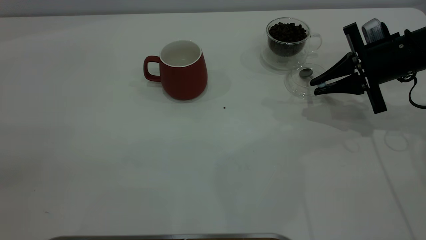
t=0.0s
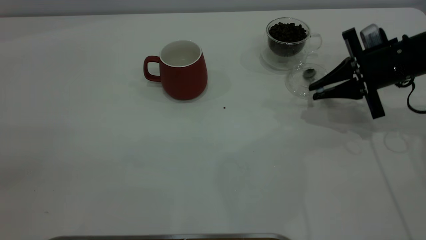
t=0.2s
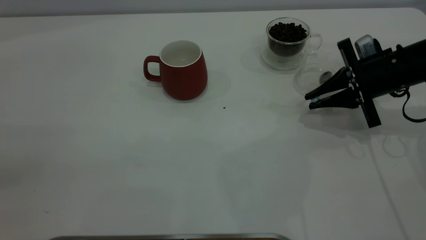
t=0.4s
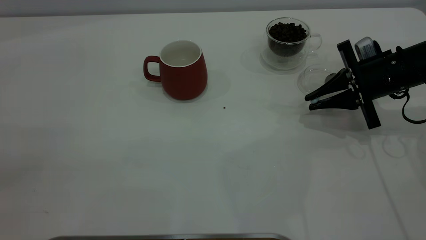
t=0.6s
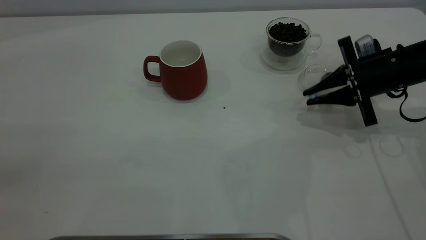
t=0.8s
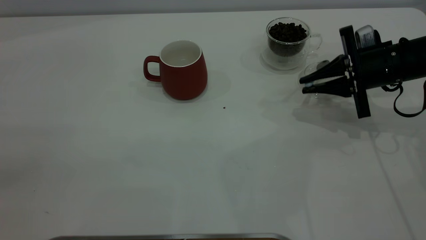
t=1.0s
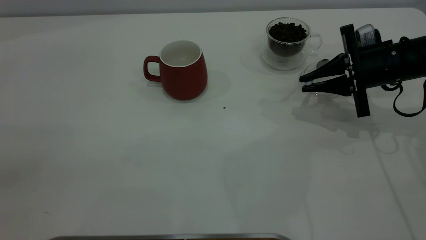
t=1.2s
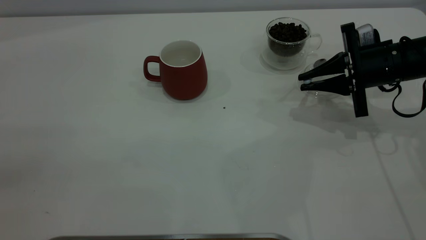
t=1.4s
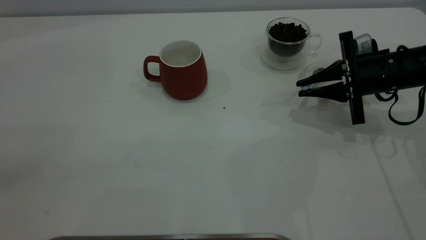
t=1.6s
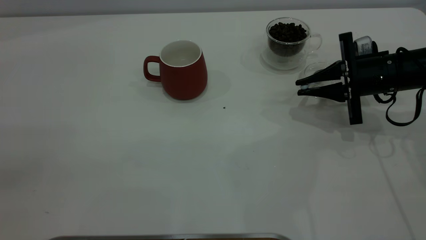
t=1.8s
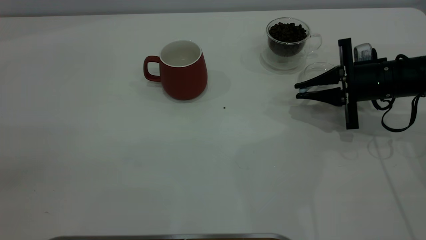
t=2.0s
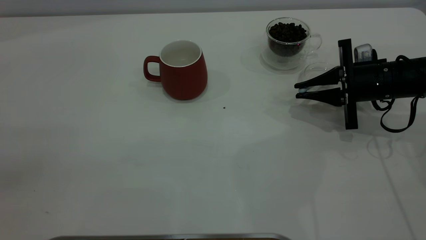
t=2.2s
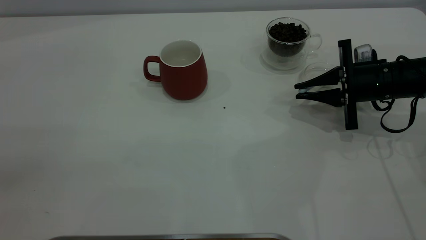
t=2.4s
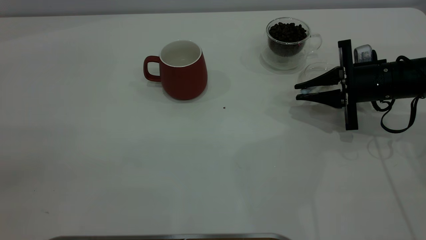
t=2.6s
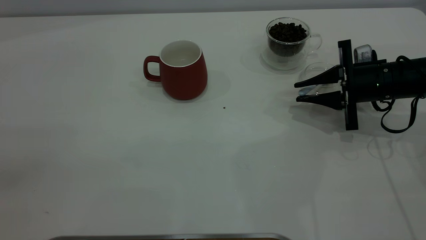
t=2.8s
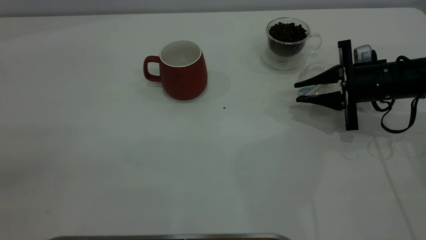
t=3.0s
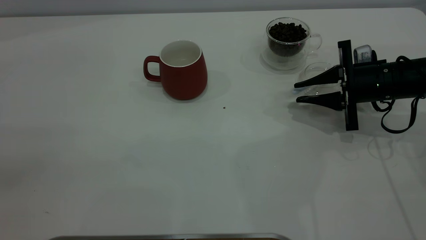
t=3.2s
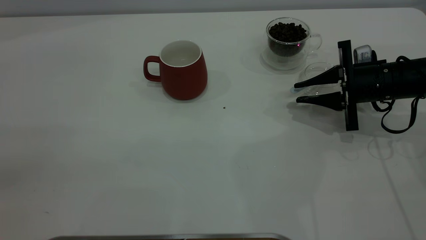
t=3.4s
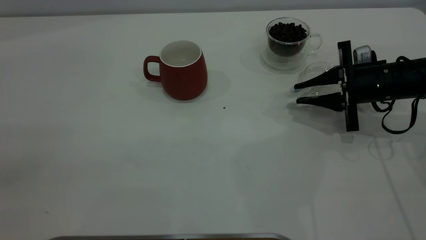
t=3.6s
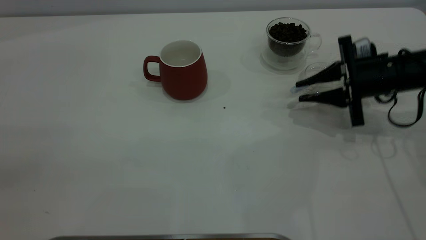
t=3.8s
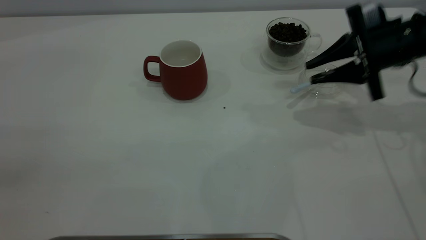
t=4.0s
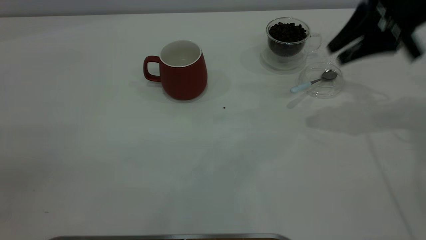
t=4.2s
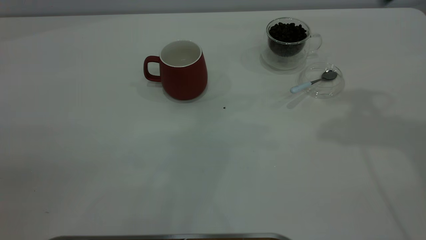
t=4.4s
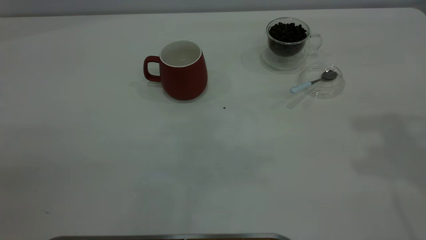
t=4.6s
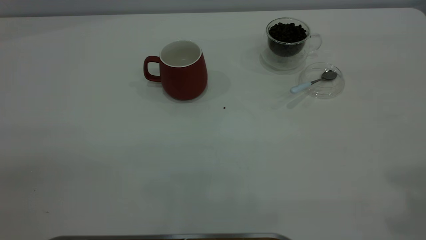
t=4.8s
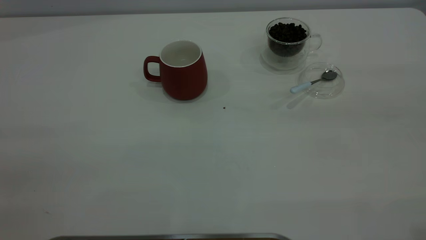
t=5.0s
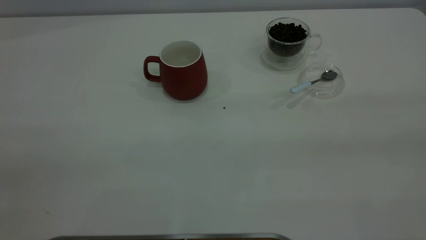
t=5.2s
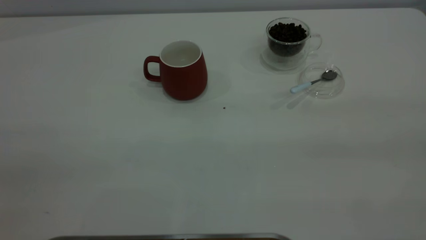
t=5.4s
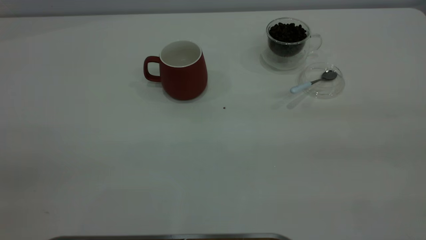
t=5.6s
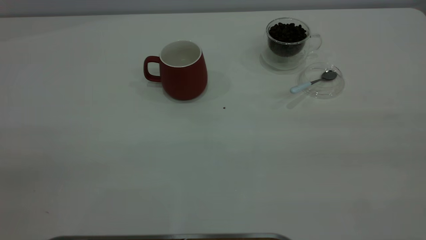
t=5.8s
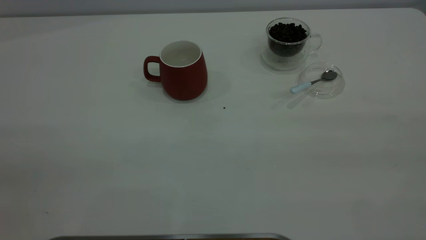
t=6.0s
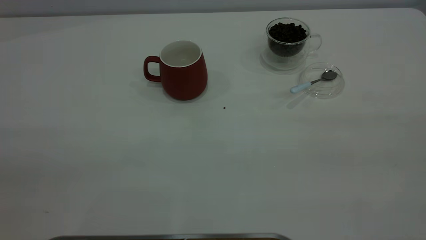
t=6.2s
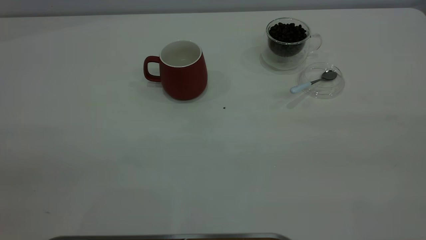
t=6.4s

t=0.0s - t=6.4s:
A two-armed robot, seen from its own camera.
Task of the whole recording: the left gripper place the red cup in the center of the table, the right gripper take the blue spoon from the cup lid and scoop out the coffee beans from the coffee cup and put them into the red cup, the right gripper put the spoon back into the cup lid.
Step, t=0.0s - t=3.8s: Place the spoon back in its original place.
t=0.0s - t=3.2s: There are only small adjustments of the grippers.
t=3.2s - t=4.8s: The right gripper travels upward and backward by about 40 cm.

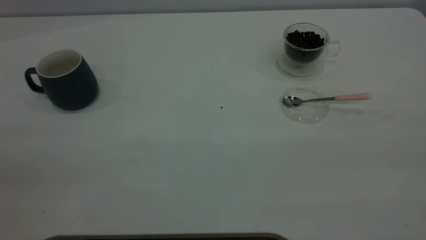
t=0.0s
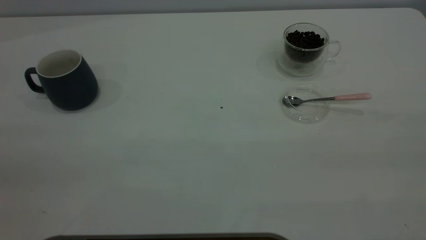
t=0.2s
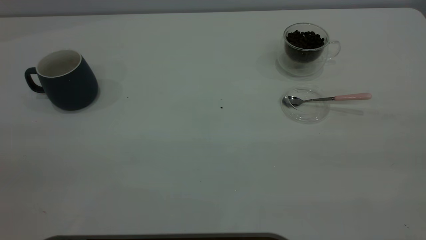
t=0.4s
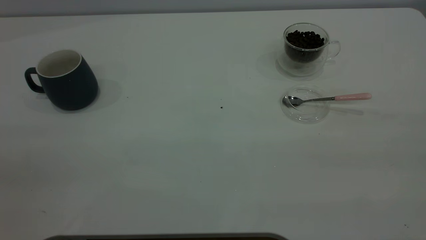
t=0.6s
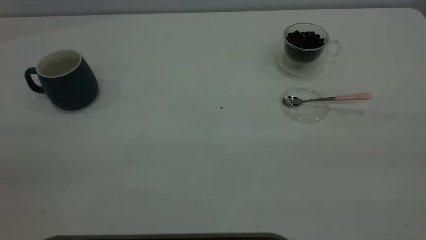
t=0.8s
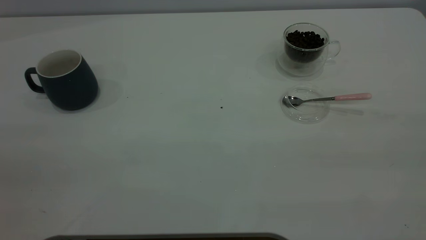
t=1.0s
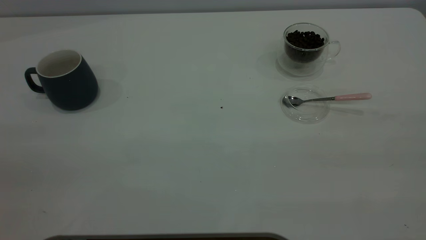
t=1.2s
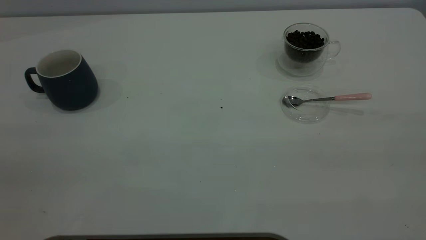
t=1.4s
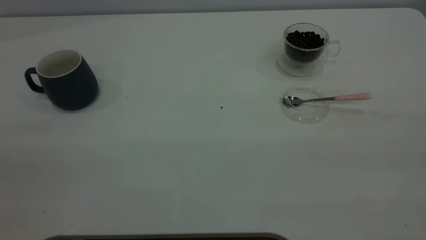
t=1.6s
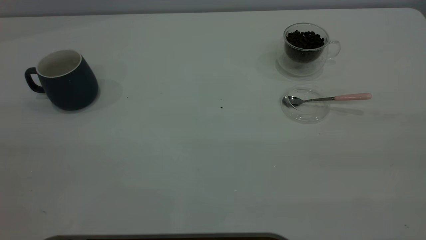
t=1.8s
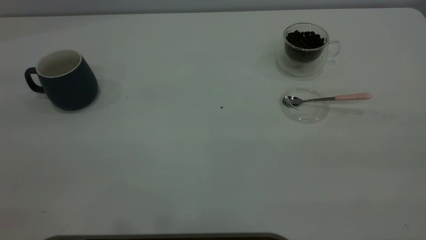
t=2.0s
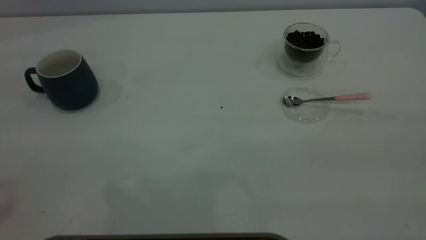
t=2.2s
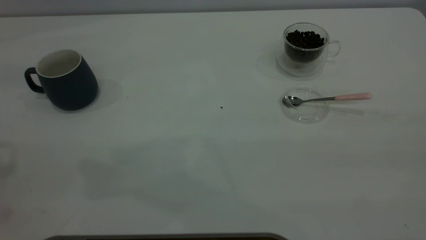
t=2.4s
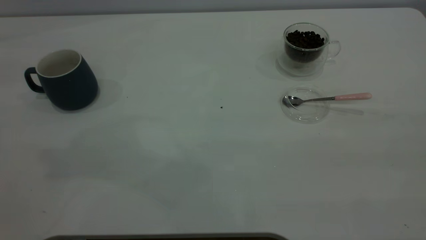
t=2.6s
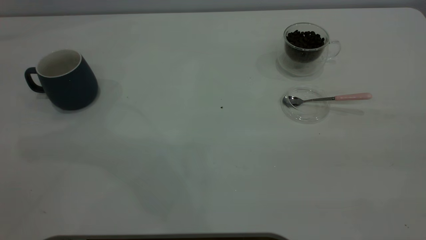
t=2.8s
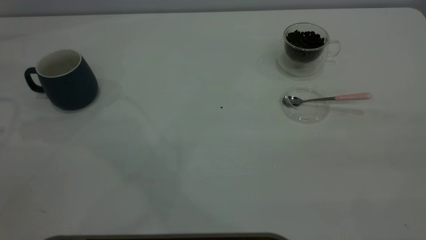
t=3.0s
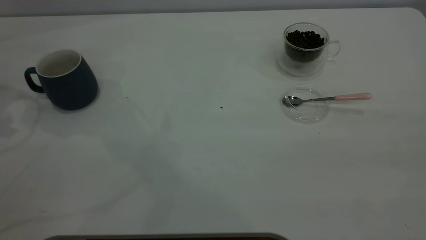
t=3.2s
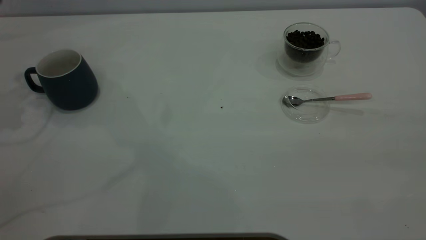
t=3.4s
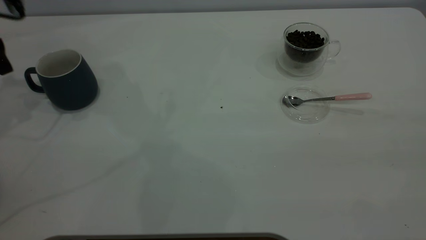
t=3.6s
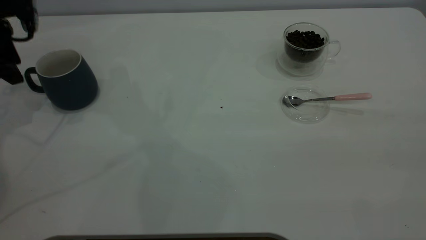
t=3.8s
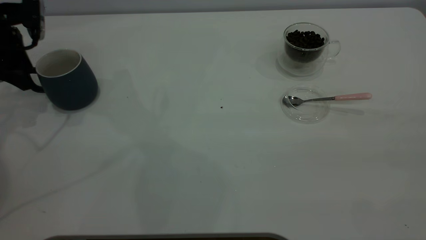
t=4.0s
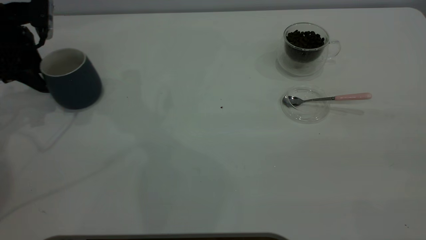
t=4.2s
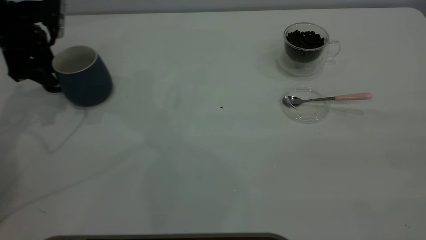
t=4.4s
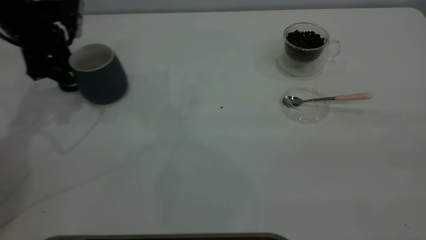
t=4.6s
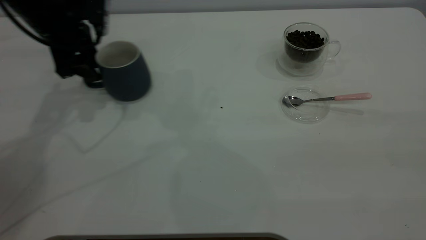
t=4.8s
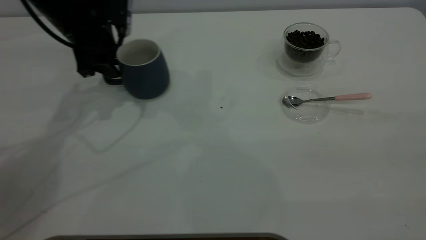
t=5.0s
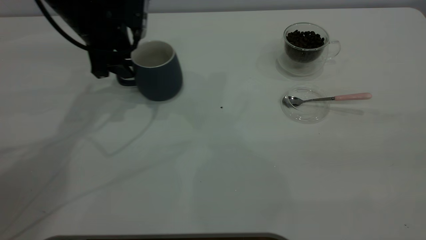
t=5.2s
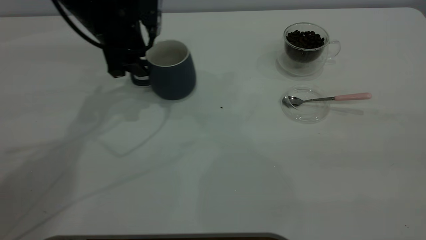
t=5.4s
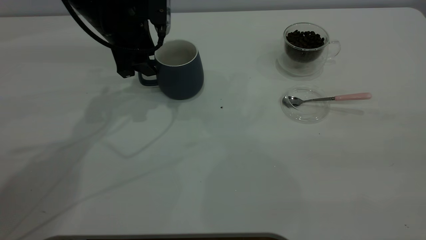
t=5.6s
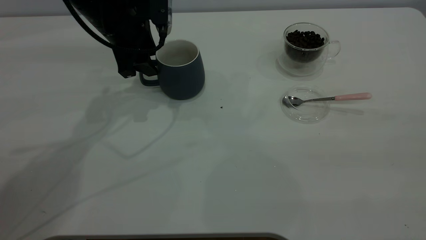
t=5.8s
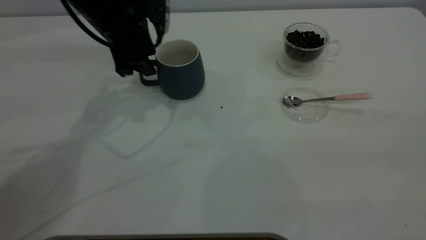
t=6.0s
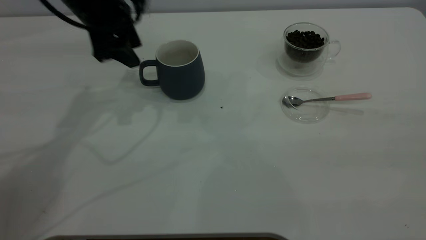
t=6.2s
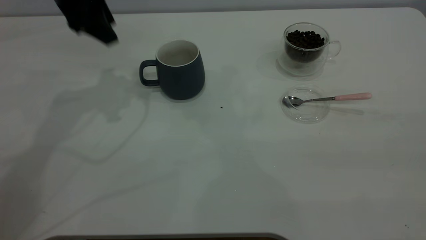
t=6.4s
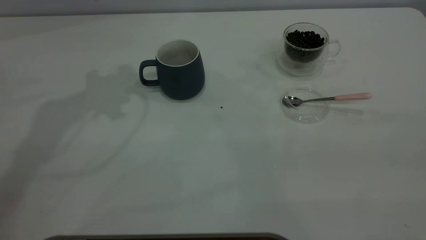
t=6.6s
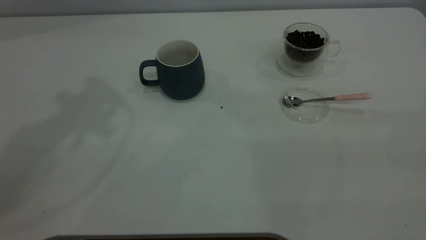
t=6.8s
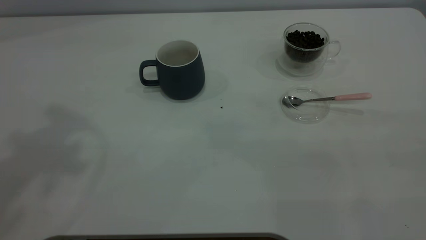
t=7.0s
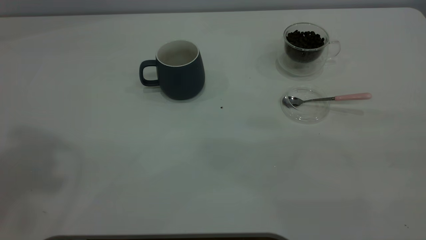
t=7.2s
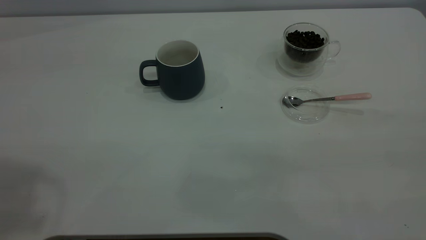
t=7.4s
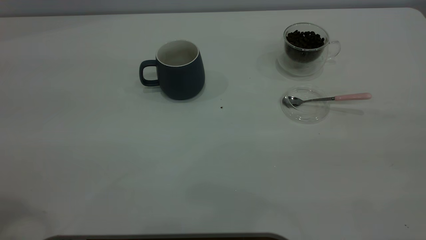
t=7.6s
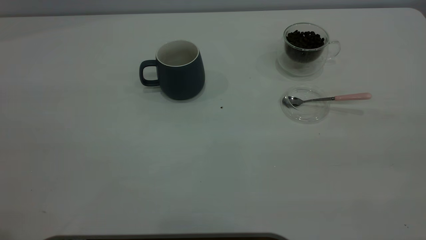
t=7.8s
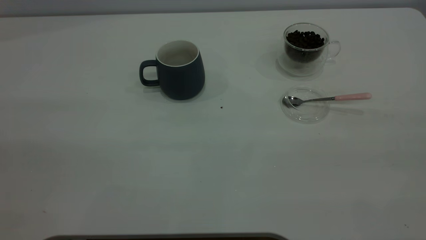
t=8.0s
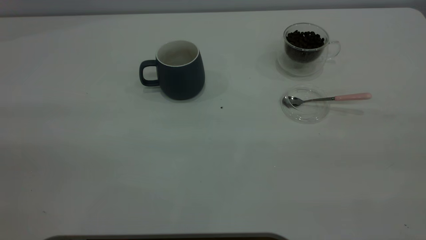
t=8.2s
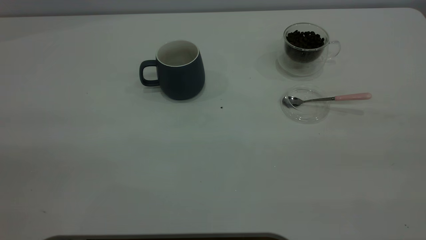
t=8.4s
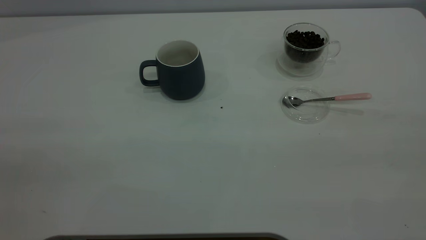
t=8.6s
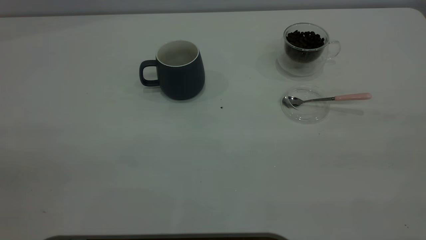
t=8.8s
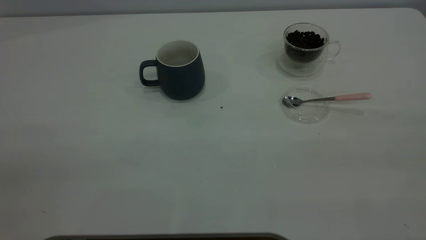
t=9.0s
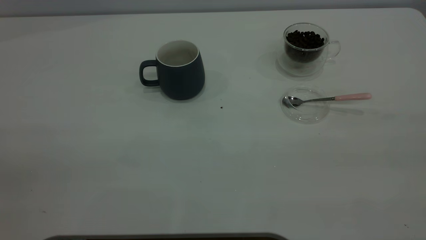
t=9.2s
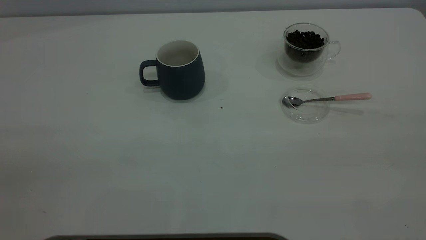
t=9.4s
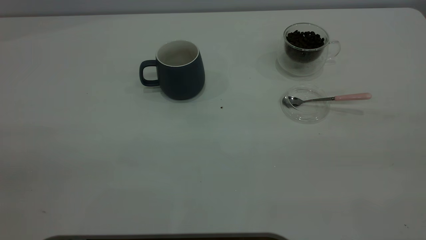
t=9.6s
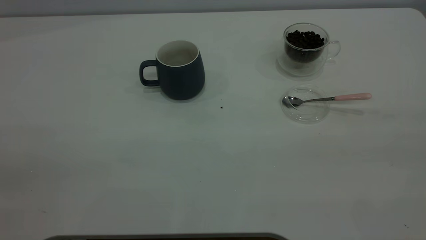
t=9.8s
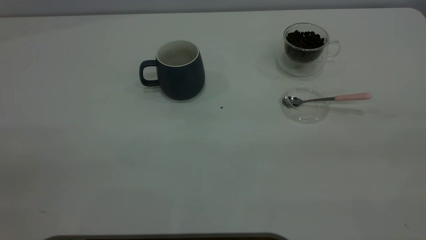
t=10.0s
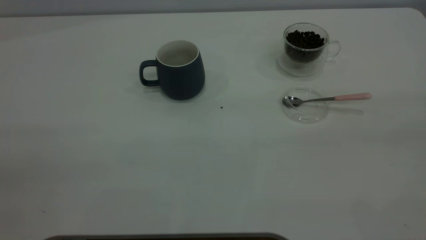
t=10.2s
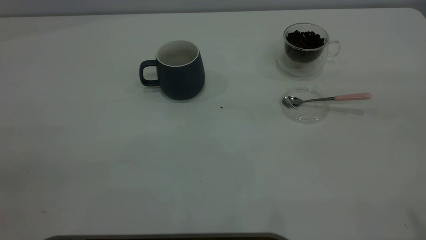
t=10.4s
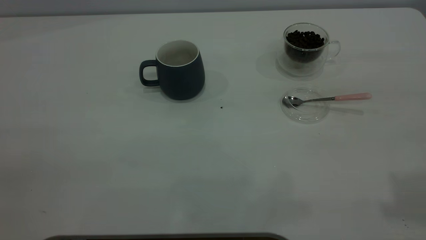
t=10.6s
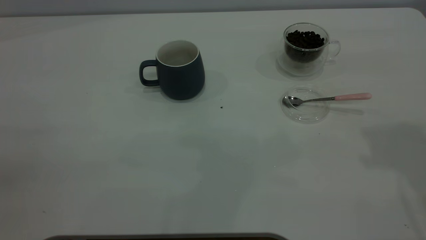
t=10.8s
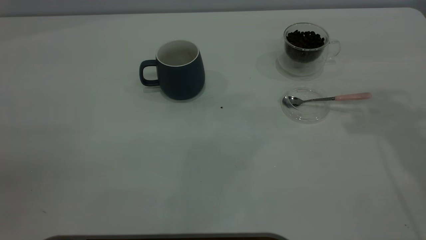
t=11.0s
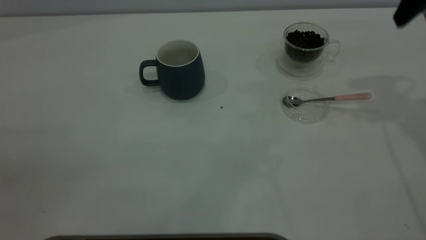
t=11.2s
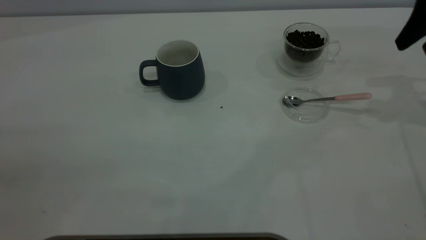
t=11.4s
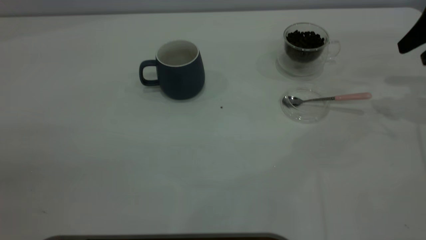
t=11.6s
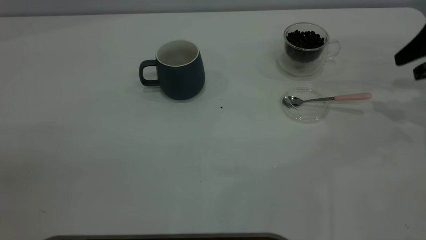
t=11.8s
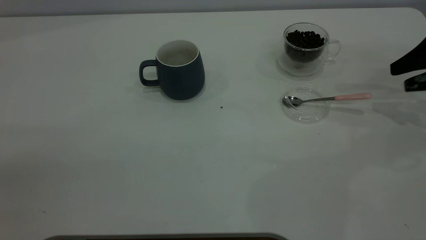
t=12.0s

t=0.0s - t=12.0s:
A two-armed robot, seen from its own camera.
Task of the whole recording: the left gripper place the grey cup in the center of the table, the right gripper take the pink spoon from the cup lid and scoop out the coffee beans from the coffee cup and put them into the grey cup, the right gripper put the spoon back into the cup lid.
Step, t=0.0s - t=6.0s: Move the cup to the center of view.
t=3.0s - t=4.4s: The left gripper moves downward, to the right and forward, some 20 cm.
t=4.4s - t=6.0s: The left gripper shifts approximately 15 cm to the right.
t=6.0s - t=7.6s: The left gripper heads backward and upward, covering roughly 40 cm.
t=10.4s - t=12.0s: The right gripper goes about 40 cm downward, forward and to the right.
